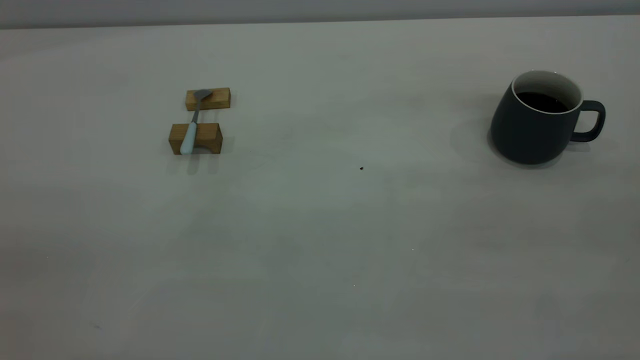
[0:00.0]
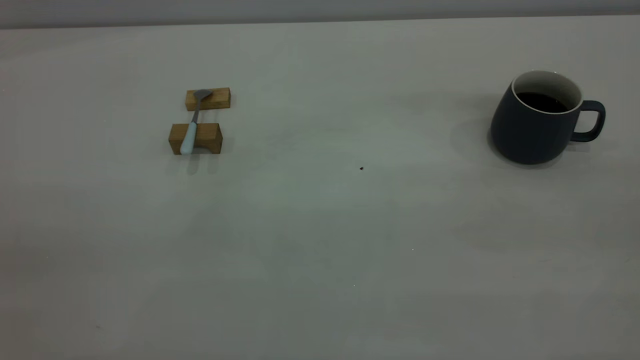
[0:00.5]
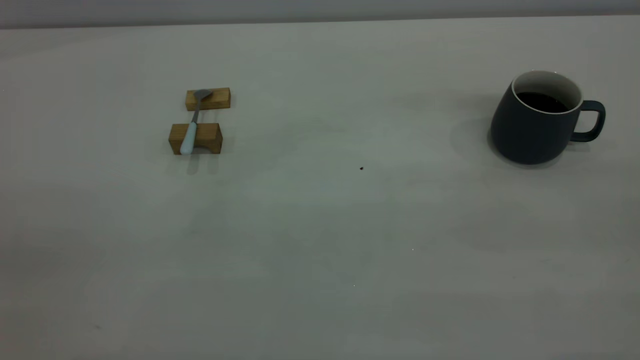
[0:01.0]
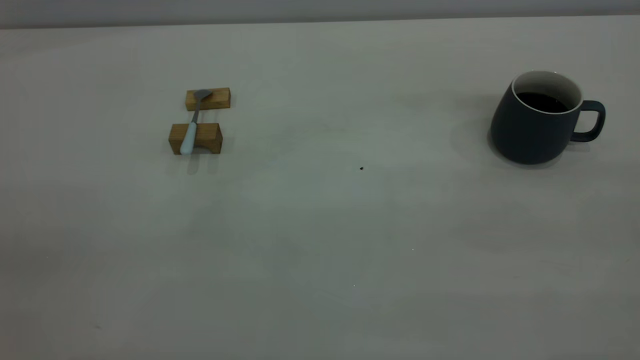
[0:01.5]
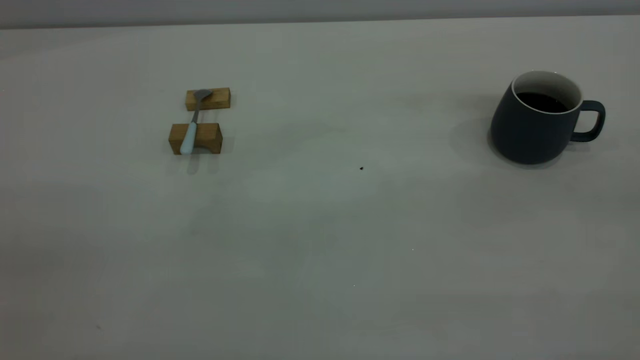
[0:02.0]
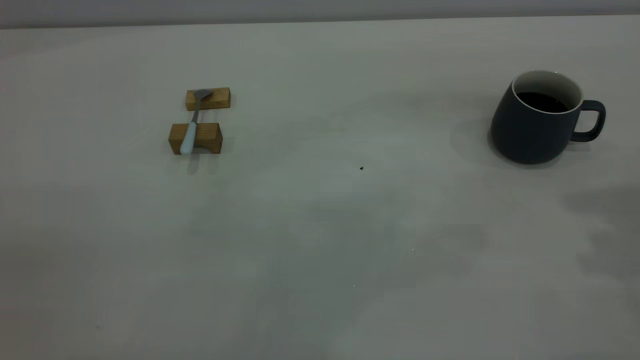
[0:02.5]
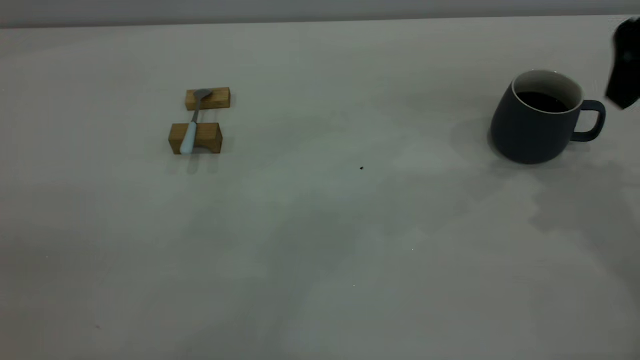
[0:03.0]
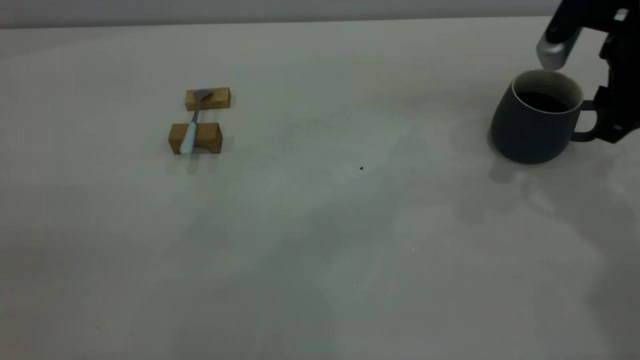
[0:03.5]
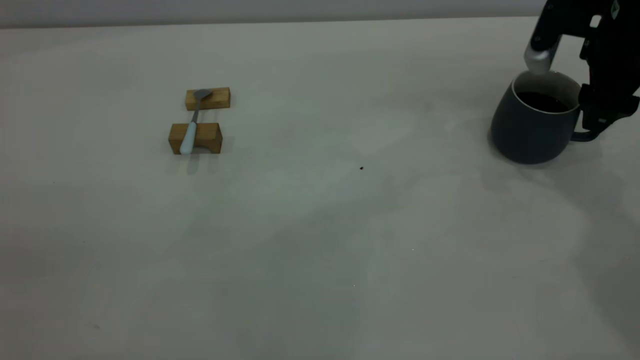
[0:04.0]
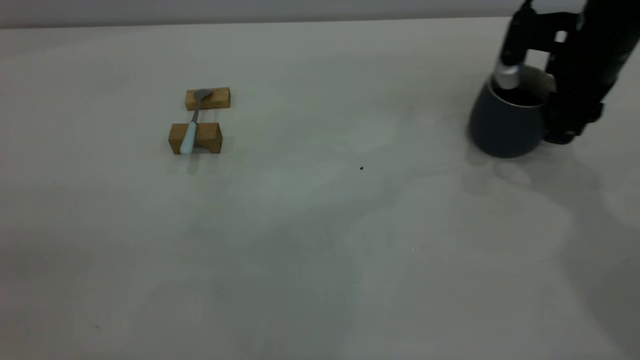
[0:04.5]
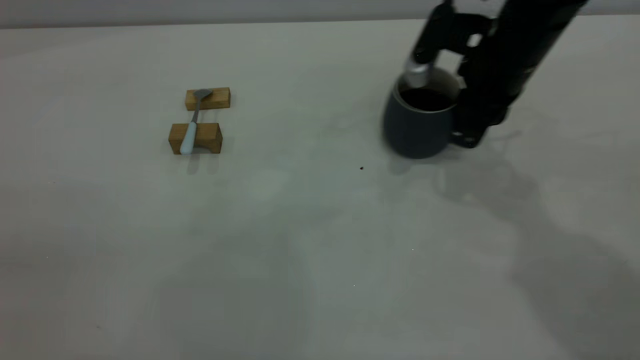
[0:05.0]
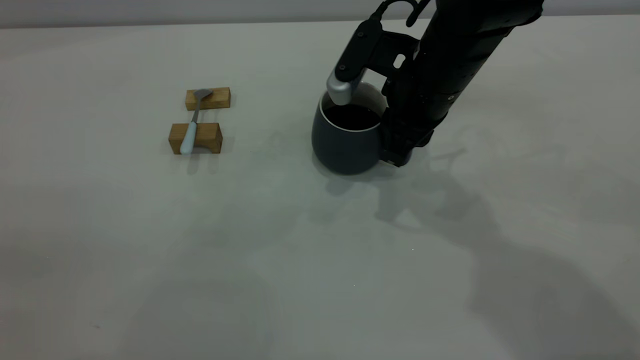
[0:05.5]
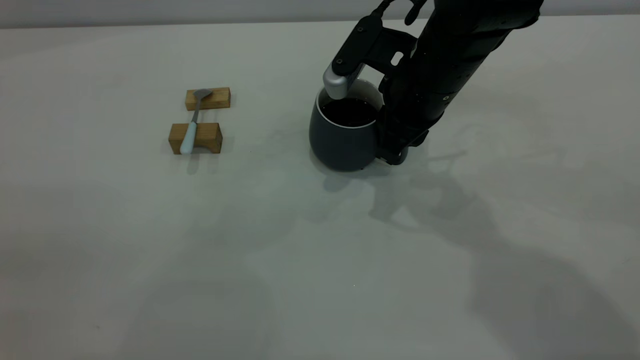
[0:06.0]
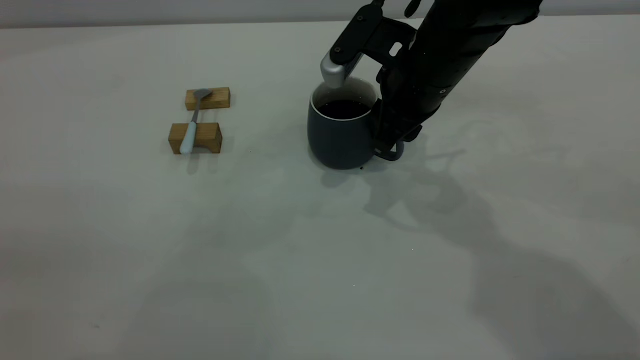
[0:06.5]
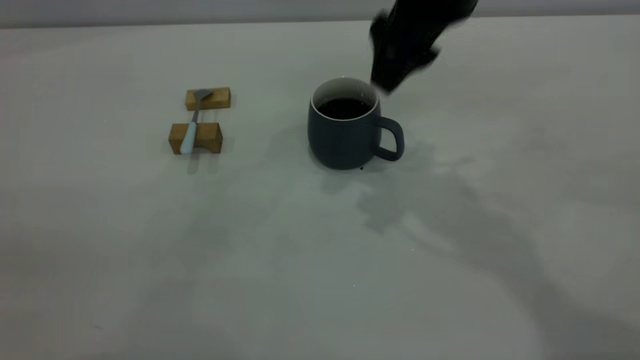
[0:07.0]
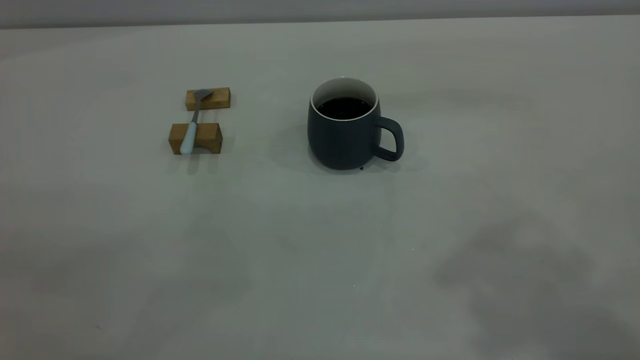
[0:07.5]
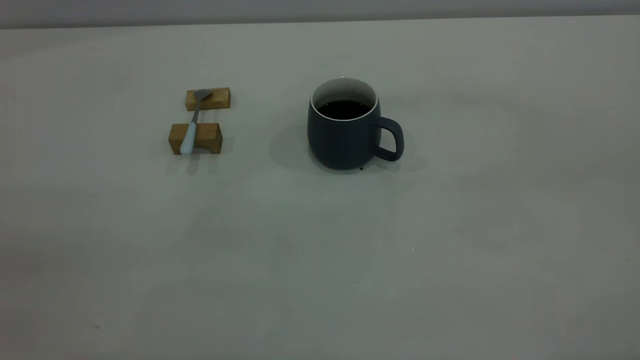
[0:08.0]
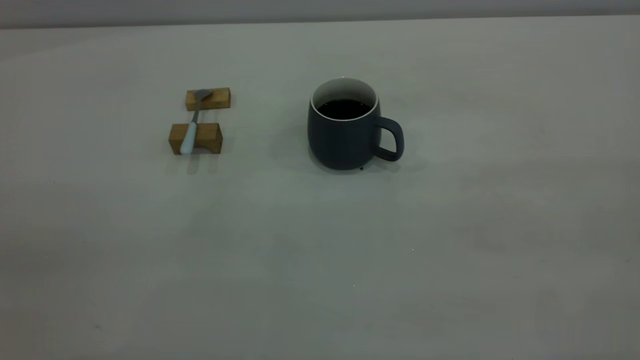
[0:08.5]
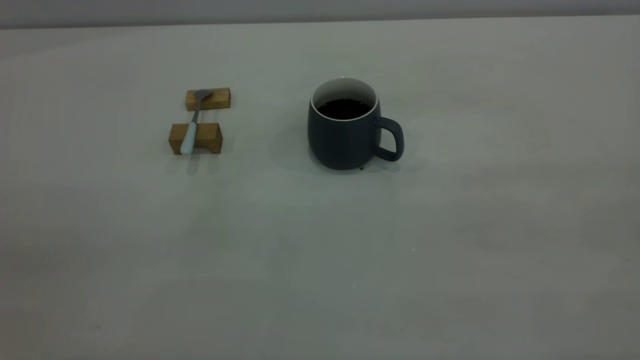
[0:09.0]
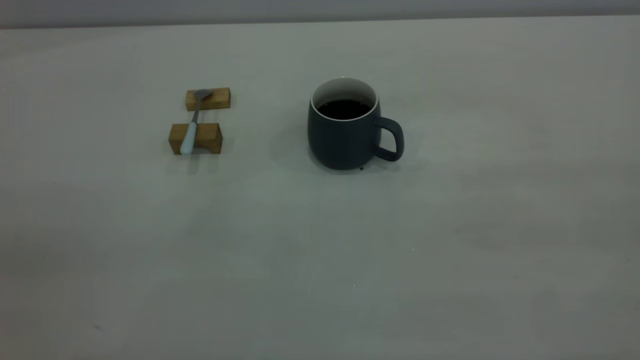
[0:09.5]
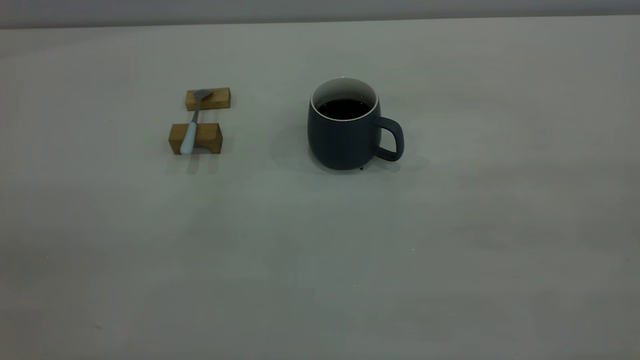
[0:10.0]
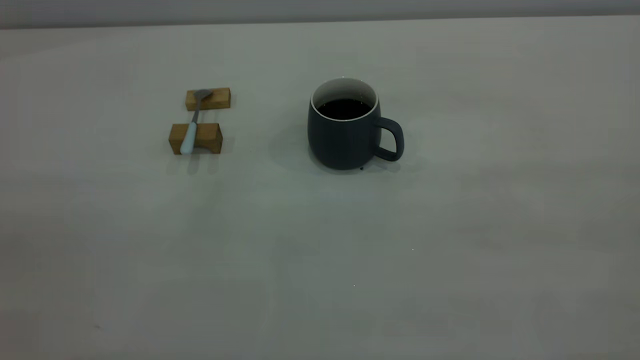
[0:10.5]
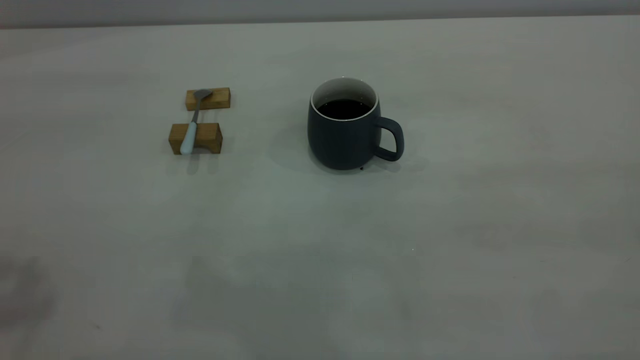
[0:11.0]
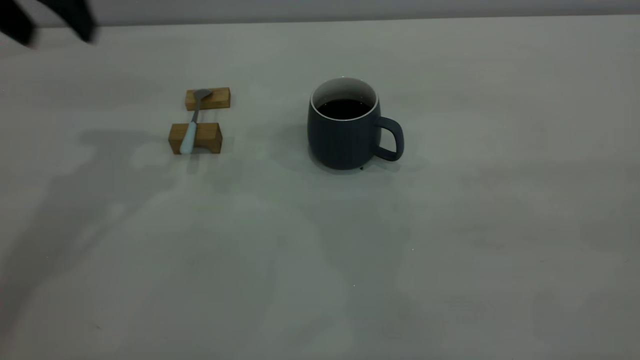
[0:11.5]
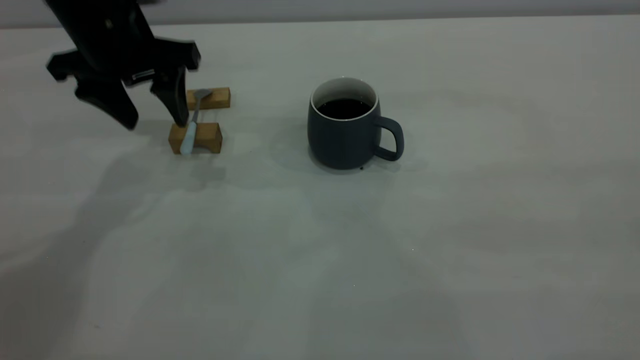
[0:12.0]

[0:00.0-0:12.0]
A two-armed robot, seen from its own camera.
Step, 0:00.0 to 0:07.0: Move the cup with coffee to the center of view.
0:02.0 to 0:04.0: The right gripper goes some 40 cm forward and downward.
0:04.0 to 0:06.0: The right gripper moves to the left, approximately 20 cm, and closes its fingers.
0:06.0 to 0:08.0: The right gripper heads backward, upward and to the right, covering some 50 cm, and opens up.
0:10.0 to 0:12.0: The left gripper travels forward and downward by some 40 cm.

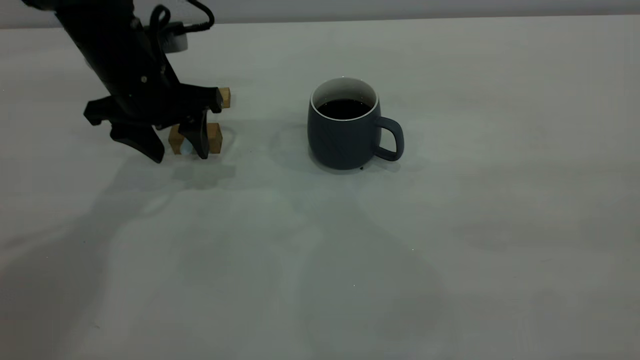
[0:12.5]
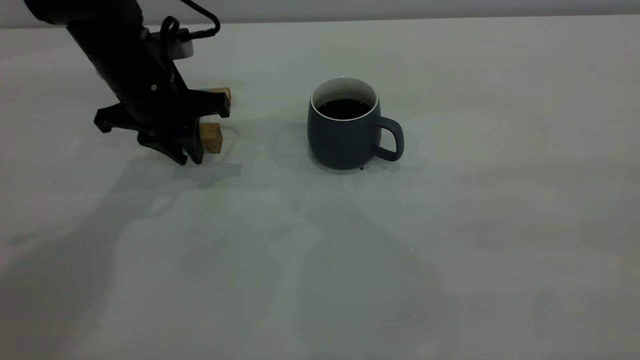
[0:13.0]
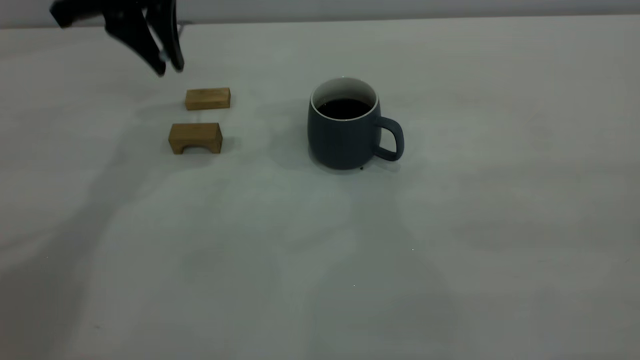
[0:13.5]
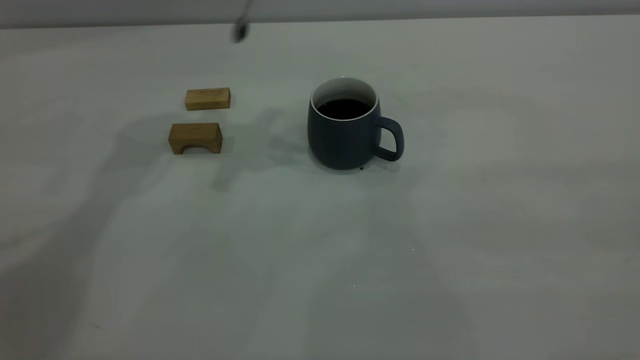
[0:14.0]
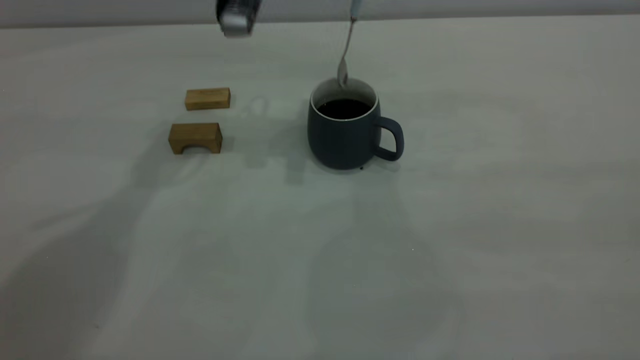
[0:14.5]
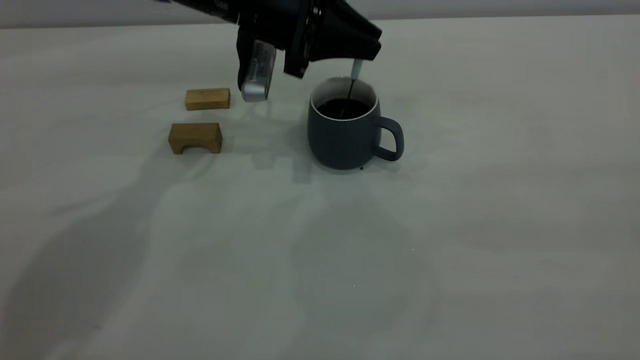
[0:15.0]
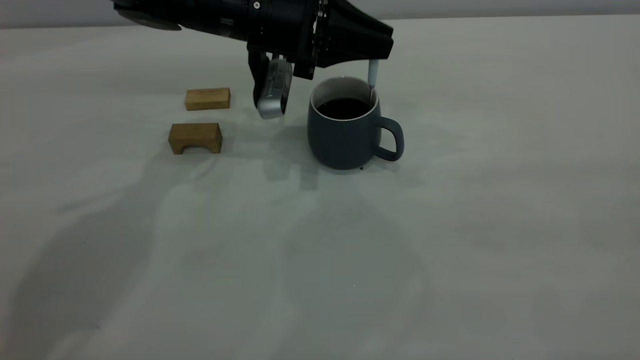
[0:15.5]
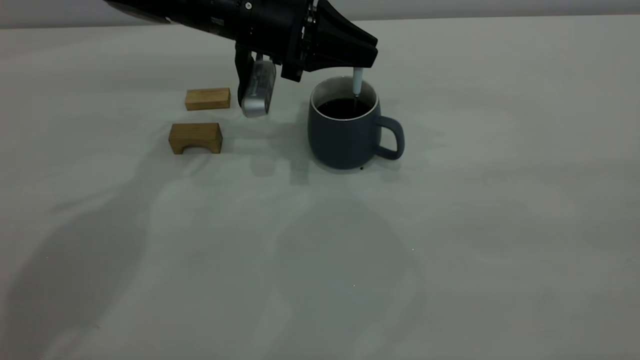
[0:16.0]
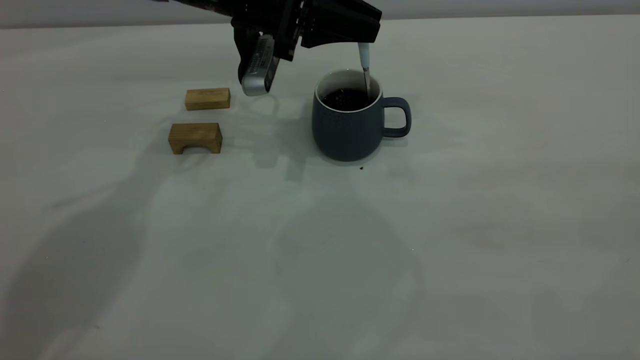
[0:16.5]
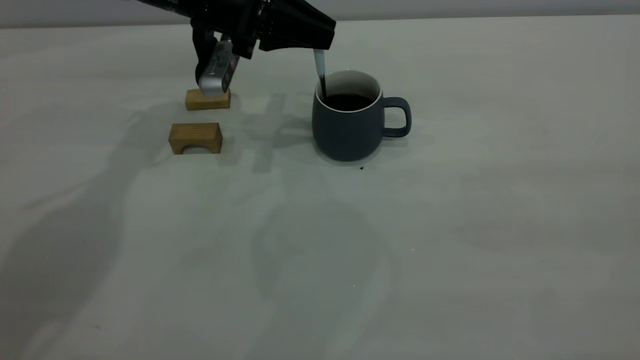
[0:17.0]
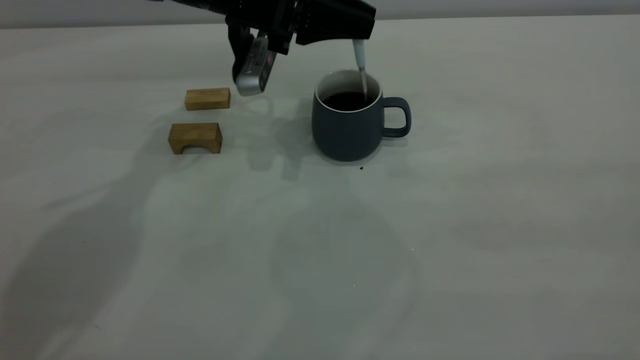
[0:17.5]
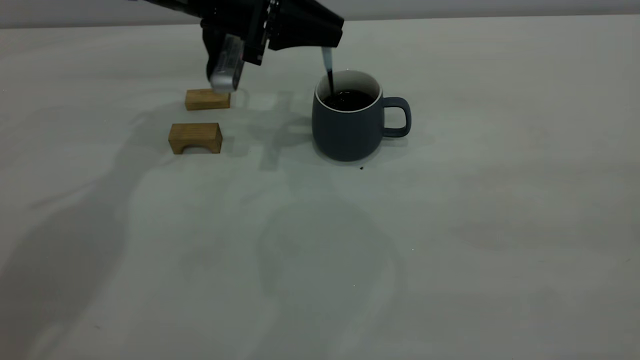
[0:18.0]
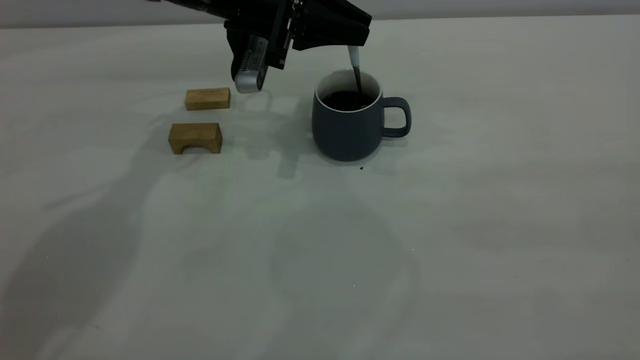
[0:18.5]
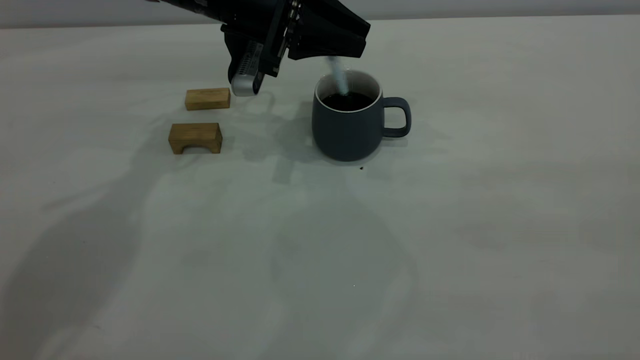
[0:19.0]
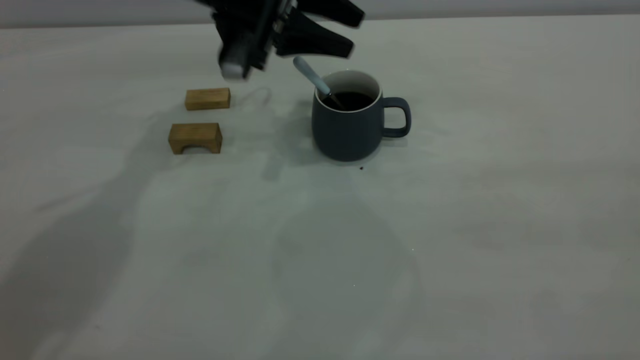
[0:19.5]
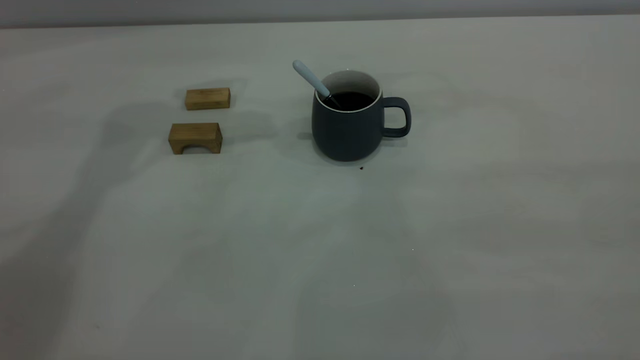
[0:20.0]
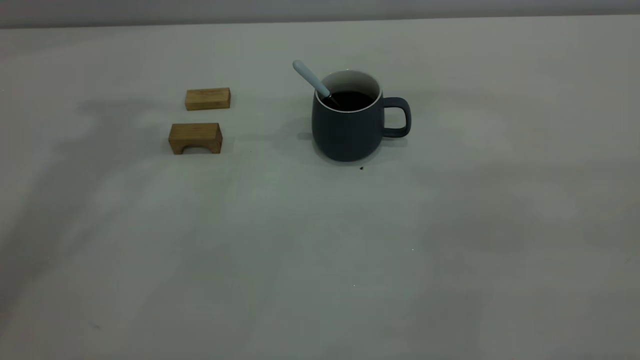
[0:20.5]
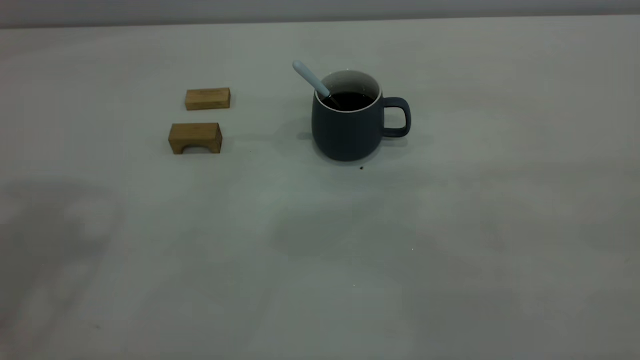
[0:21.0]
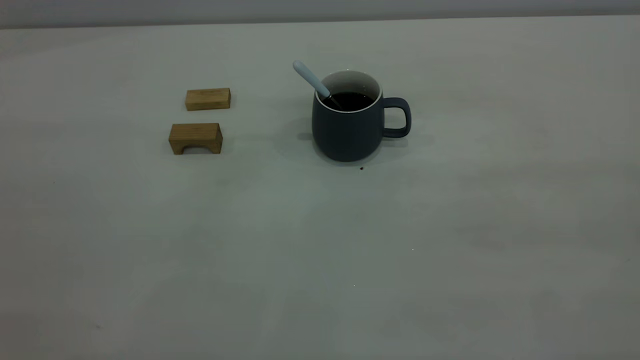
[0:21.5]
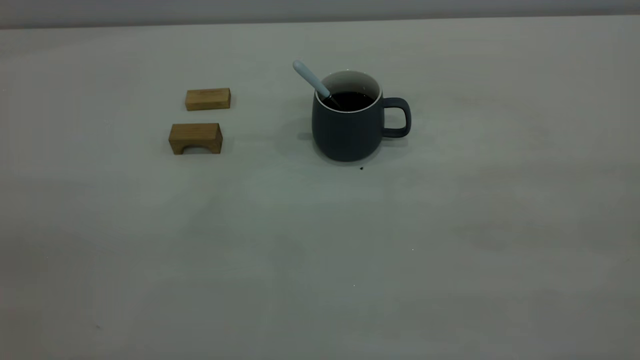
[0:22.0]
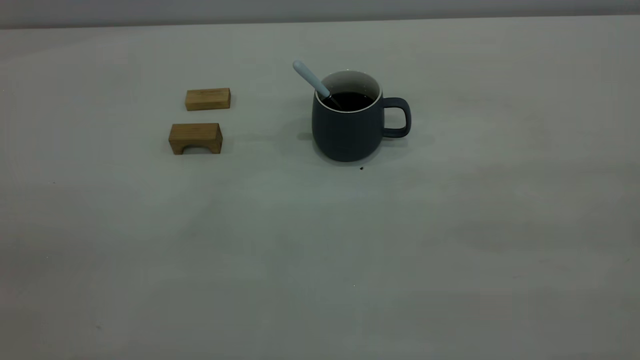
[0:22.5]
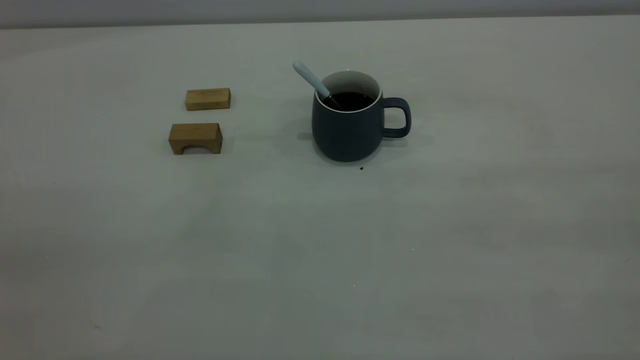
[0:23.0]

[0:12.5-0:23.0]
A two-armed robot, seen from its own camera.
Step, 0:13.5 to 0:19.5: Stir the coffee in the cup.
0:12.5 to 0:14.5: The left gripper moves to the right and upward, some 15 cm, and closes its fingers.
0:14.5 to 0:16.5: The left gripper moves downward, some 5 cm.
0:16.5 to 0:19.0: There are only small adjustments of the grippers.
0:19.0 to 0:21.0: The left gripper is displaced upward, backward and to the left by roughly 40 cm.
